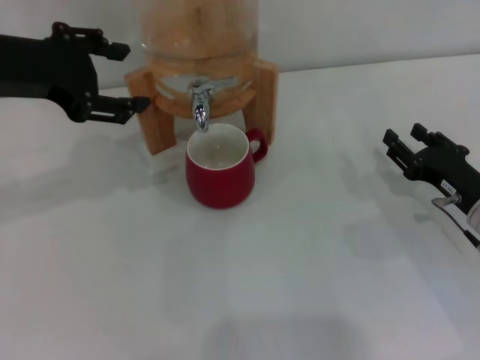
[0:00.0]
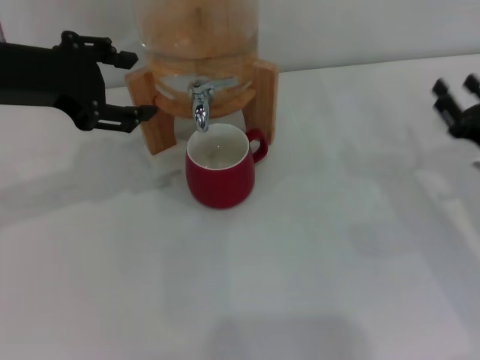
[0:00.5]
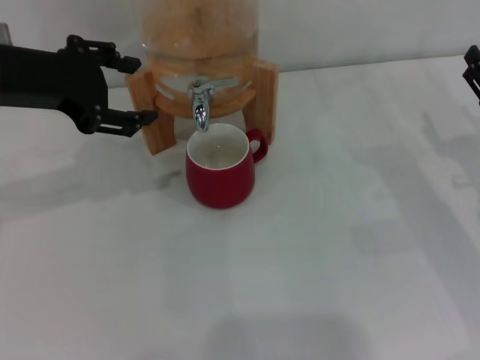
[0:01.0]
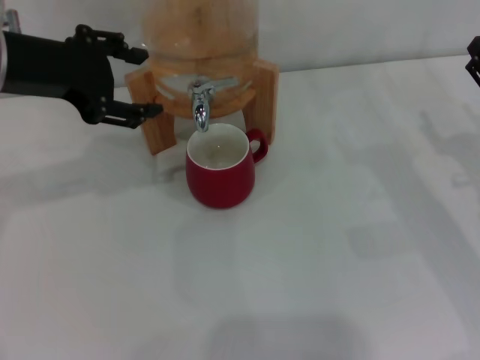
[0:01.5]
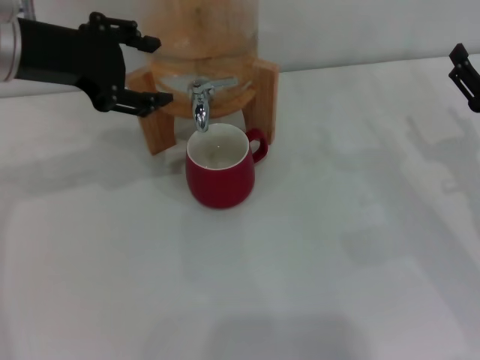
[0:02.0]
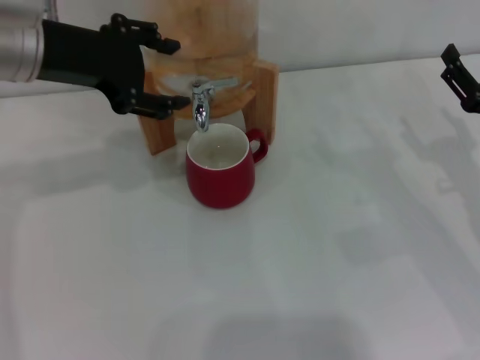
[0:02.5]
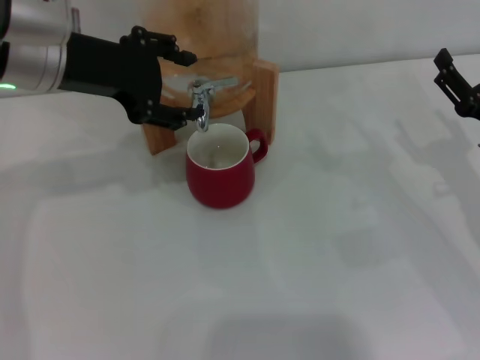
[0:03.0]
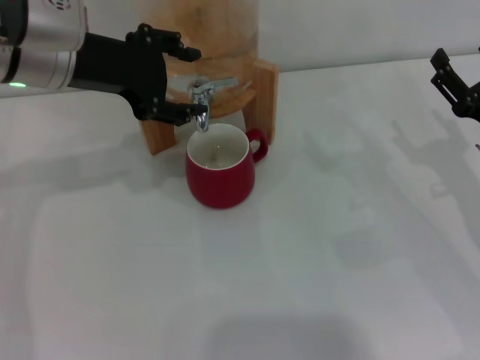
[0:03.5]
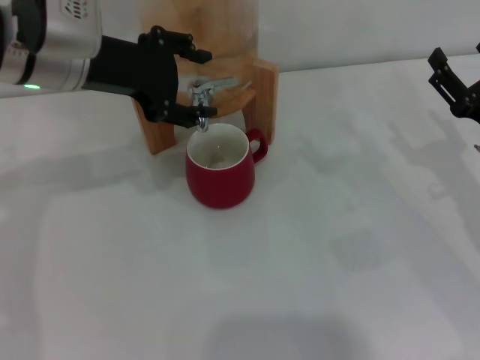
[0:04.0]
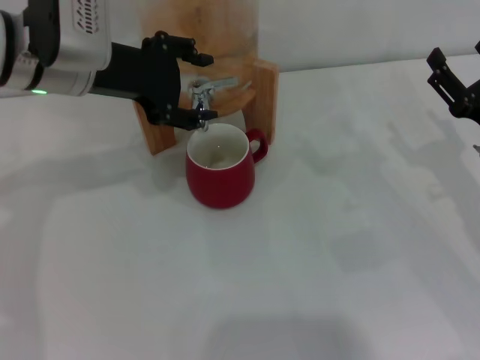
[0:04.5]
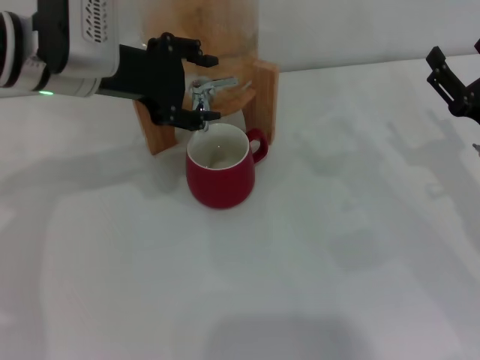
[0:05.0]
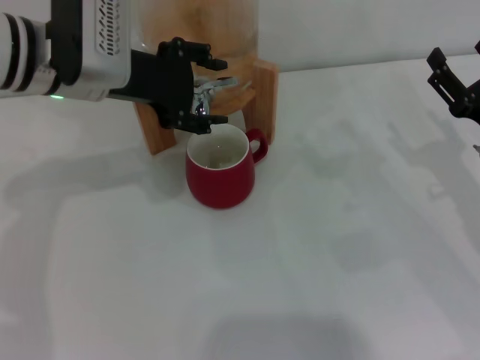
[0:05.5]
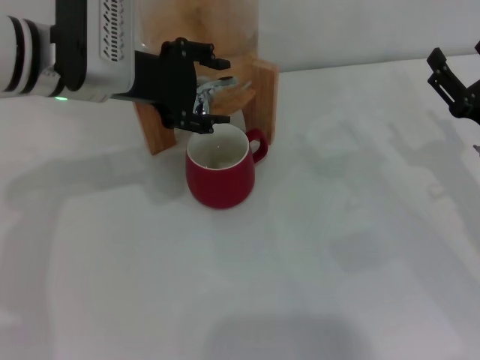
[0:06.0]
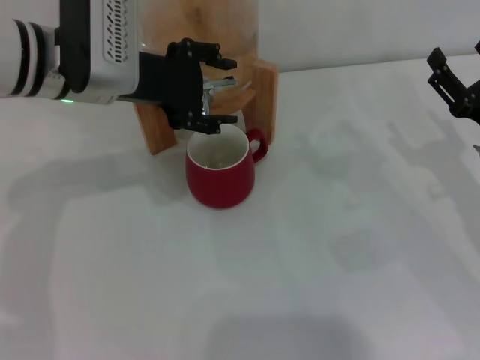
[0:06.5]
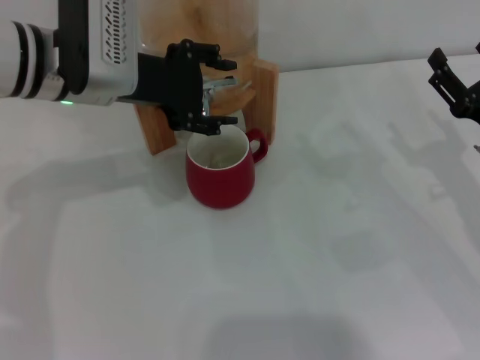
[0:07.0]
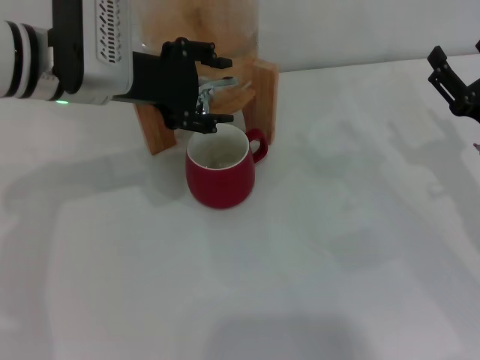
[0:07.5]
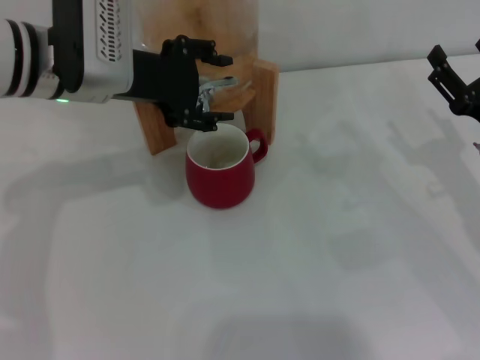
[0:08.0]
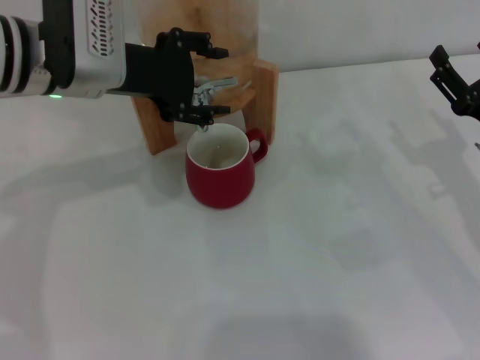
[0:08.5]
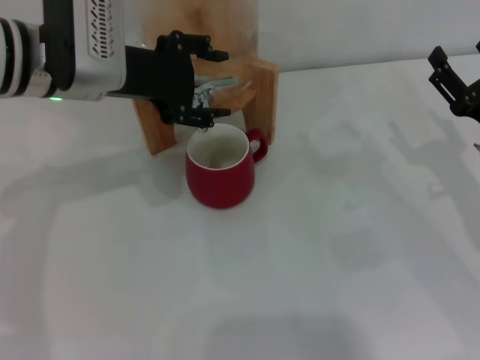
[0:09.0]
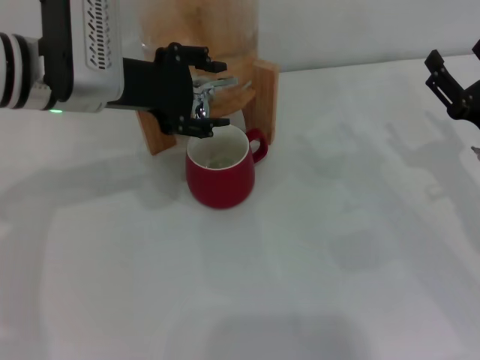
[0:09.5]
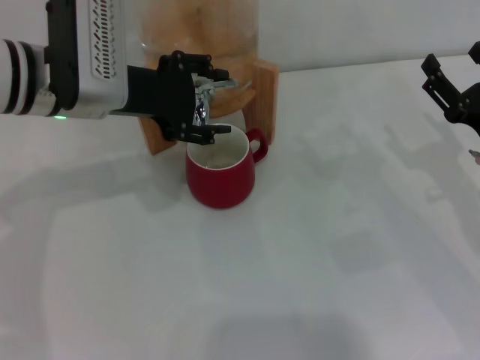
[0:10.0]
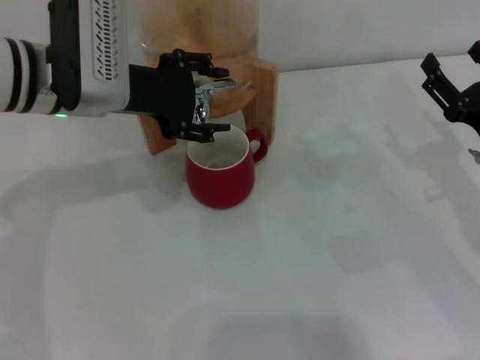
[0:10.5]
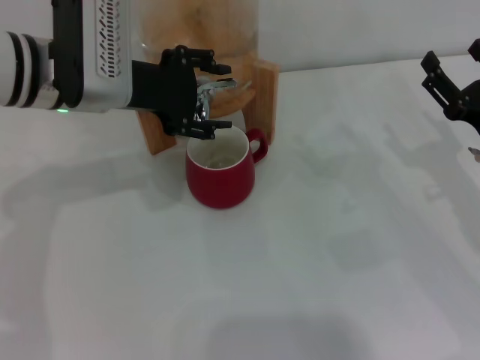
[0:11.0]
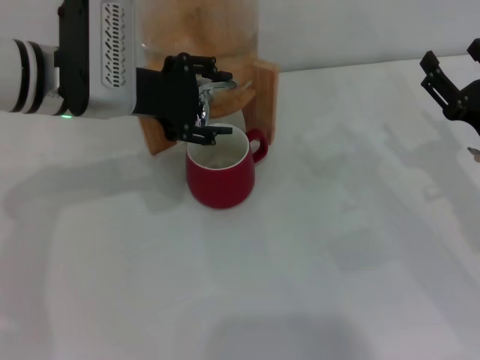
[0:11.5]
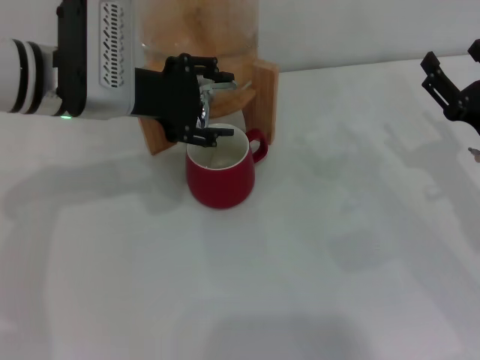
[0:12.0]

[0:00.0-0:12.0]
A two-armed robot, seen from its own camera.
Task of the whole recording: the right gripper pick up the red cup and place it horizontally under the faucet, the left gripper turn on the faucet to fill the cup, and then turn off the faucet.
0.0 to 2.0 s: The right gripper moves roughly 5 cm, and opens.
2.0 to 4.0 s: The left gripper changes place by some 5 cm.
4.0 to 6.0 s: The grippers make only small movements.
6.0 to 8.0 s: Both grippers stay about where they are.
8.0 to 10.0 s: The grippers stay close to where they were, moving slightly.
10.0 to 12.0 s: Both grippers stay put.

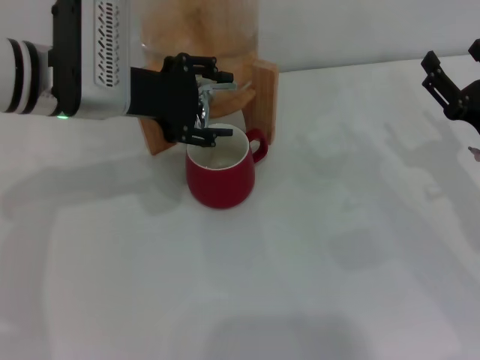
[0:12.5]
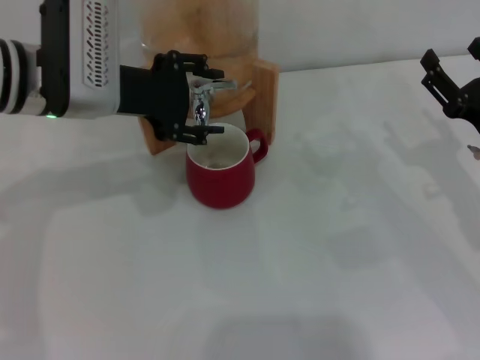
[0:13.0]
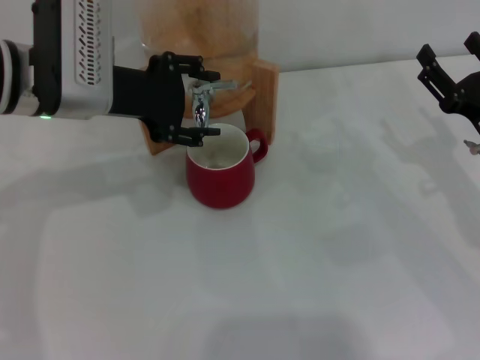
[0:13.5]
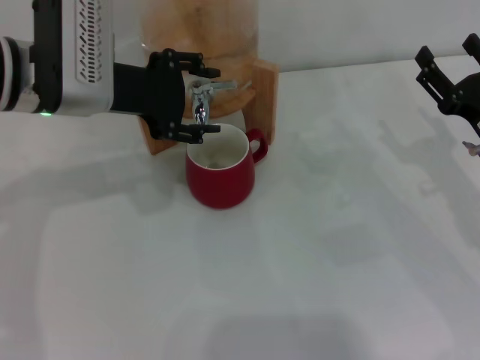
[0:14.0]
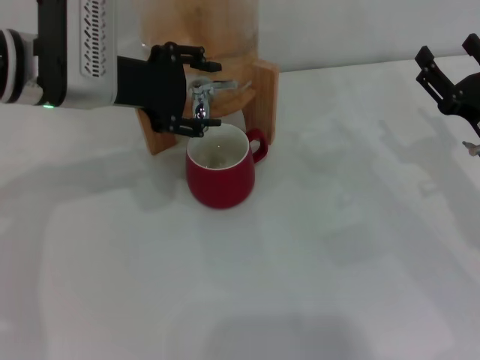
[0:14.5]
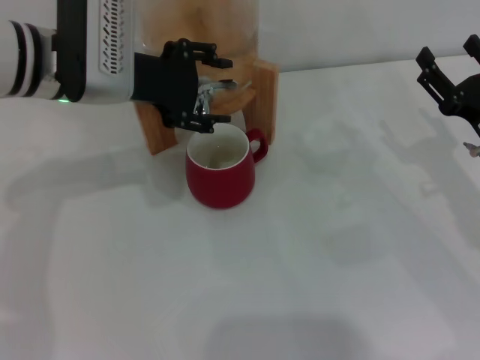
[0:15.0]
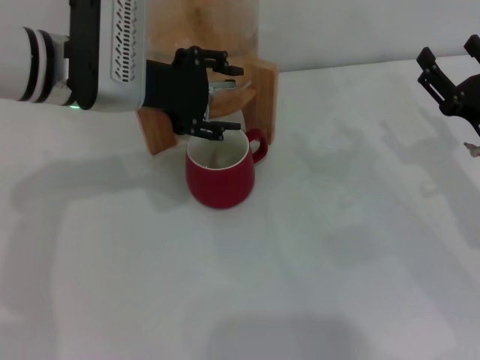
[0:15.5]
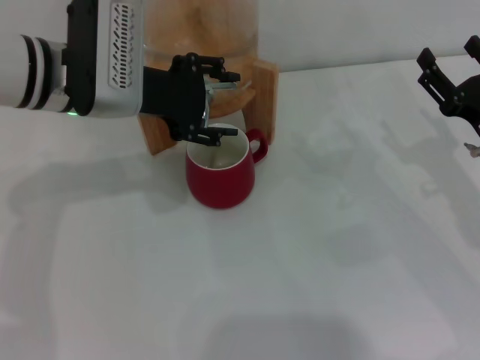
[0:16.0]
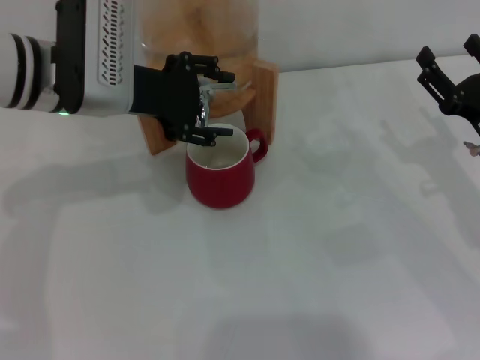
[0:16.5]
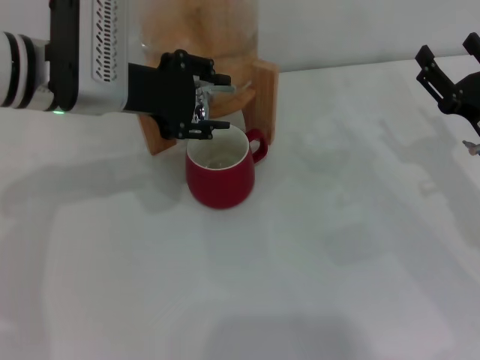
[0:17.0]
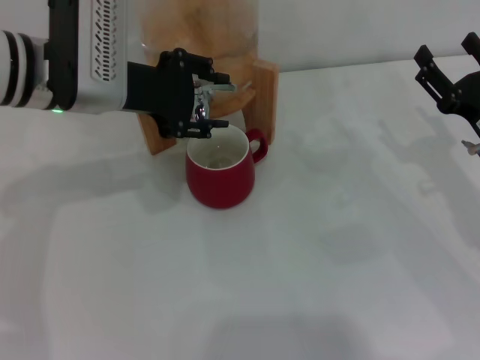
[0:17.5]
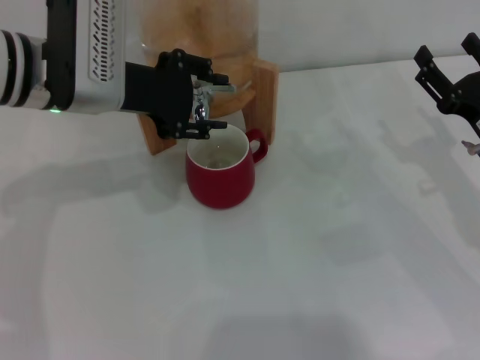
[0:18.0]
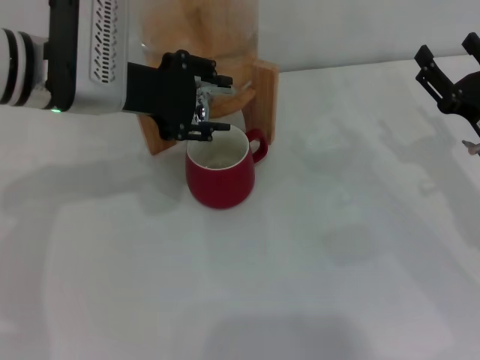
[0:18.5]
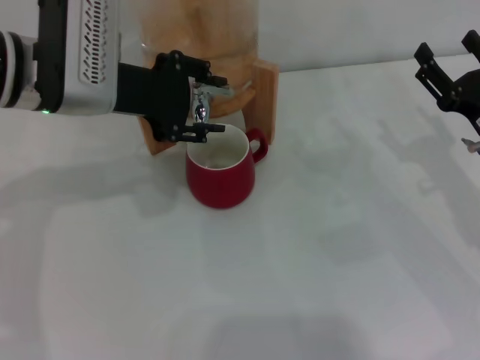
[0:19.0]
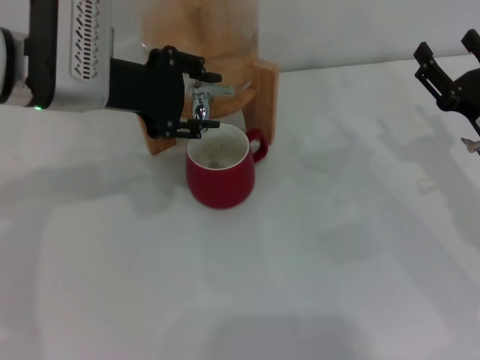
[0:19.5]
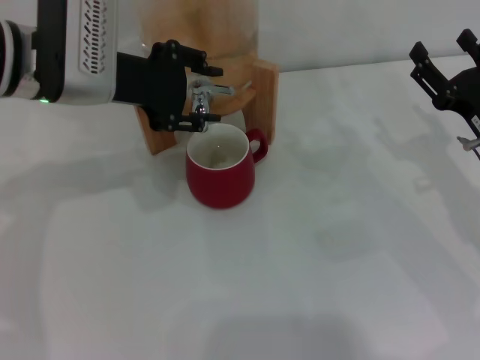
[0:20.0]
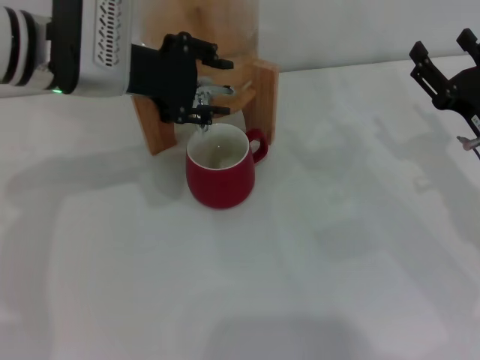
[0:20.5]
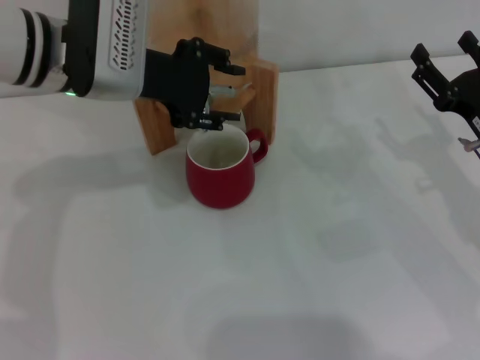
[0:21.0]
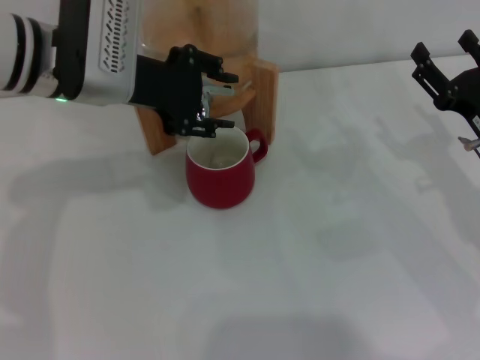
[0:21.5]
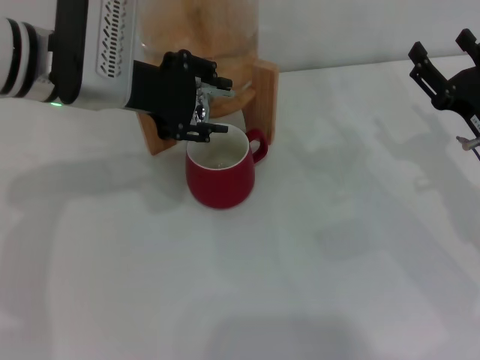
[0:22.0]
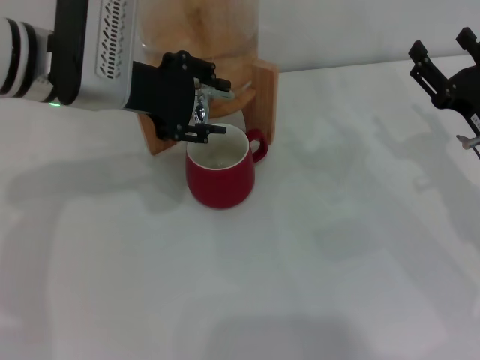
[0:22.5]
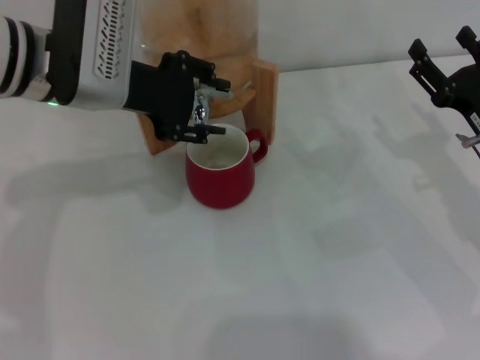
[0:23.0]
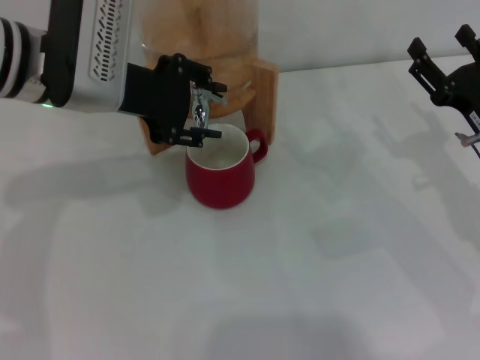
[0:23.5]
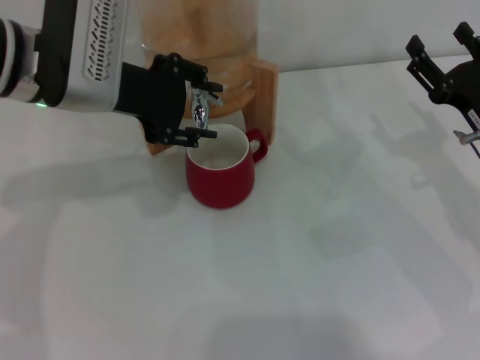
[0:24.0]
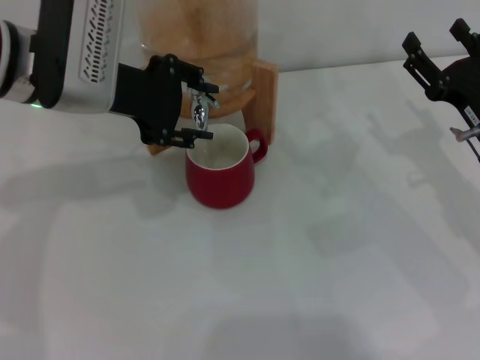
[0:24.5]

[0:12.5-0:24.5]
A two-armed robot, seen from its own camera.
Task of the whole recording: the right gripper pick up the red cup and place it horizontally under the faucet, the left gripper turn on the faucet to fill the cup, and then turn off the faucet.
12.5 to 14.5 s: The two grippers keep their place.
14.5 to 16.5 s: The grippers move only a little.
16.5 to 18.5 s: The left gripper closes up.
18.5 to 20.5 s: The grippers move only a little.
20.5 to 22.5 s: Both grippers stay put.
22.5 to 24.5 s: The grippers make only small movements.

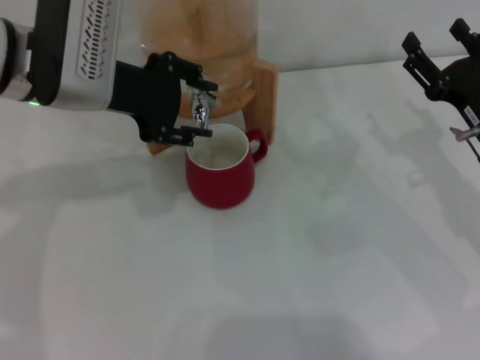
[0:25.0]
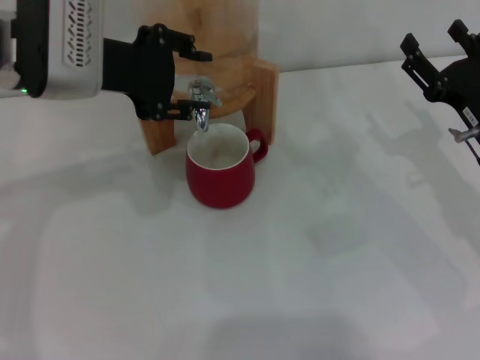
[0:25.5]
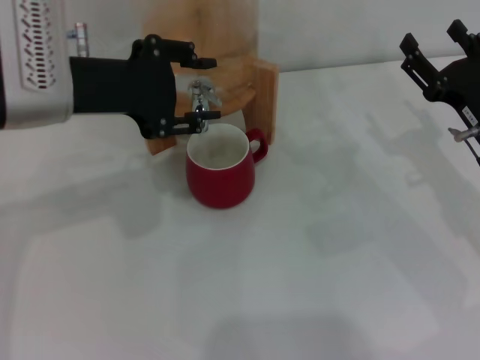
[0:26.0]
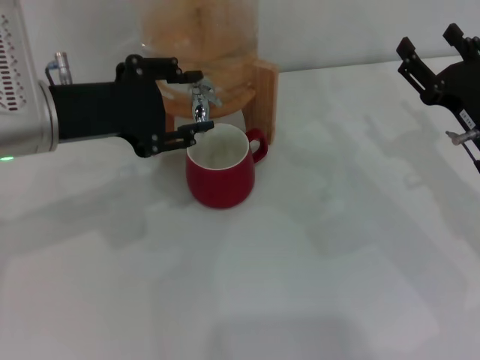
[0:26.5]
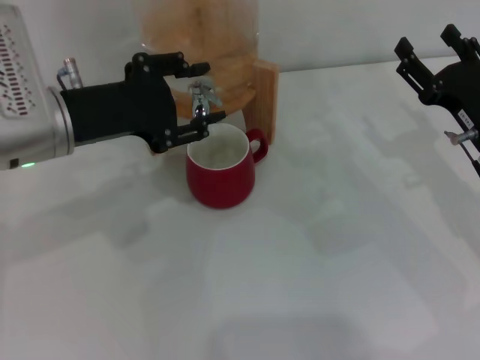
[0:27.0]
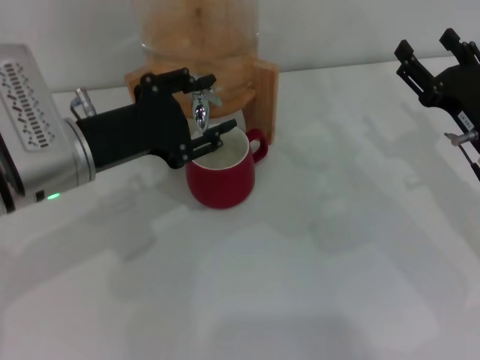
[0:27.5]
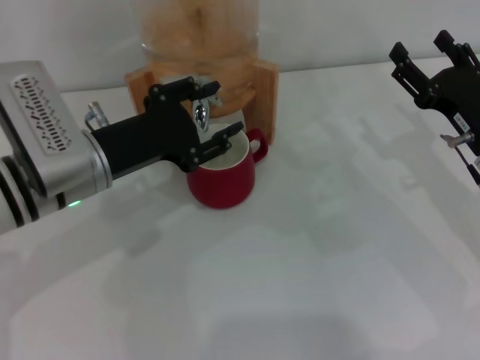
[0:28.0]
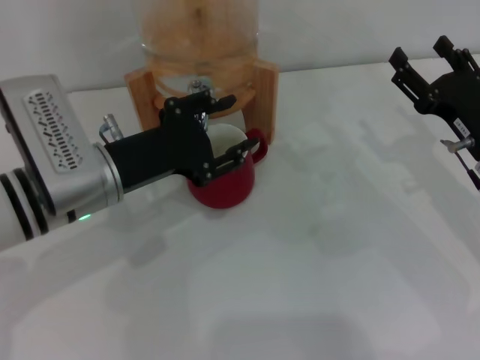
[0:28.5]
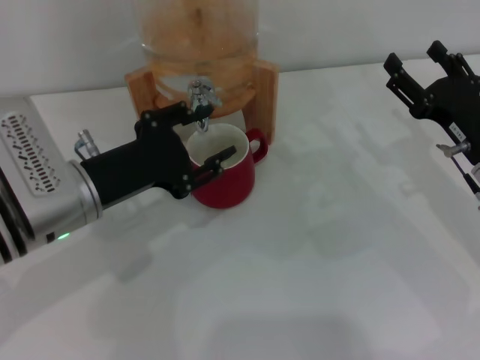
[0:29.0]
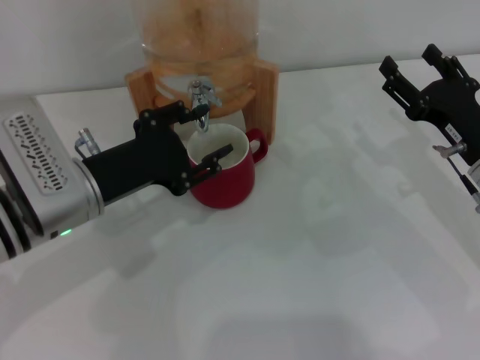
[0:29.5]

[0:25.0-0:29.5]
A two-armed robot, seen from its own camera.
Task of the whole recording: the right gripper pick up the red cup and place it horizontally under the faucet, the left gripper turn on the faucet to fill the cup, and then turn off the faucet.
25.0 to 27.0 s: The left gripper ends up roughly 5 cm from where it was.
27.0 to 29.5 s: The left gripper travels downward by some 5 cm.
